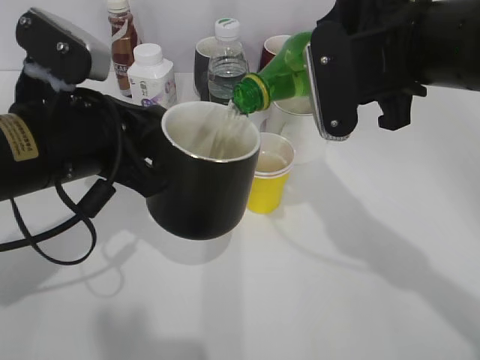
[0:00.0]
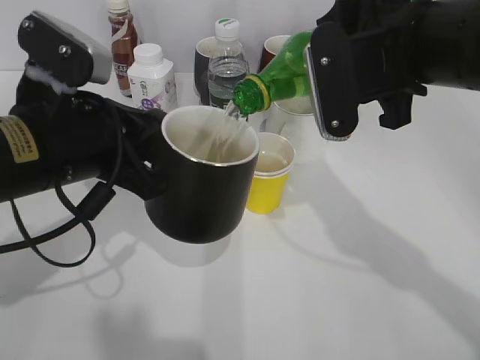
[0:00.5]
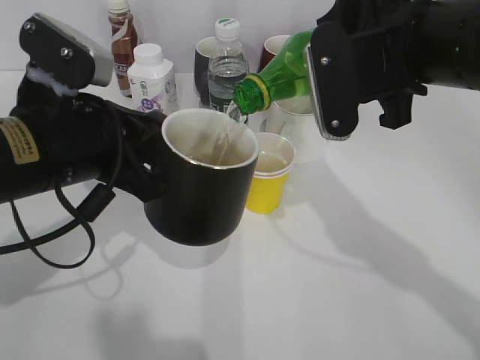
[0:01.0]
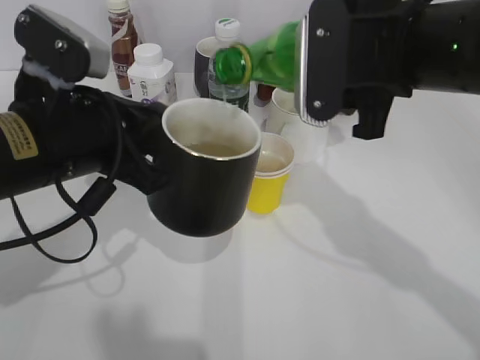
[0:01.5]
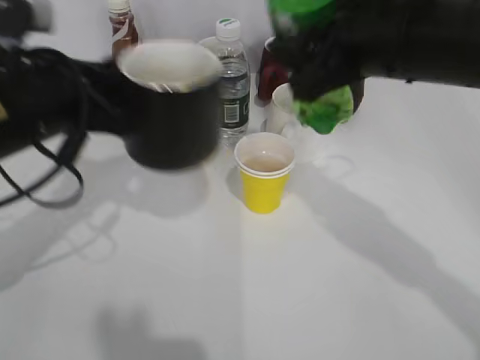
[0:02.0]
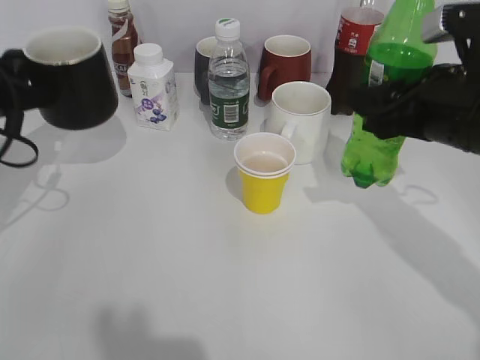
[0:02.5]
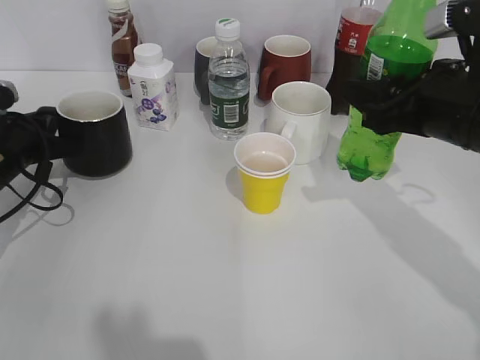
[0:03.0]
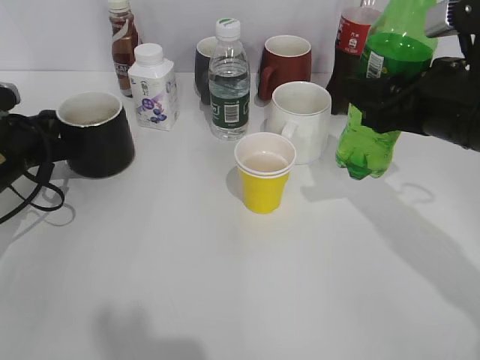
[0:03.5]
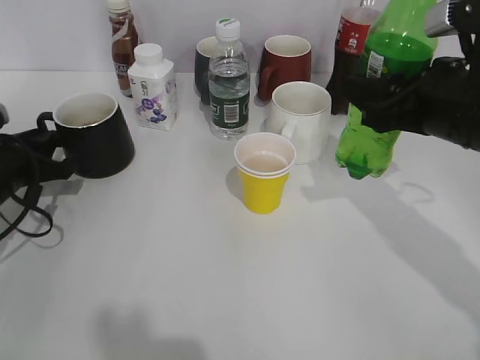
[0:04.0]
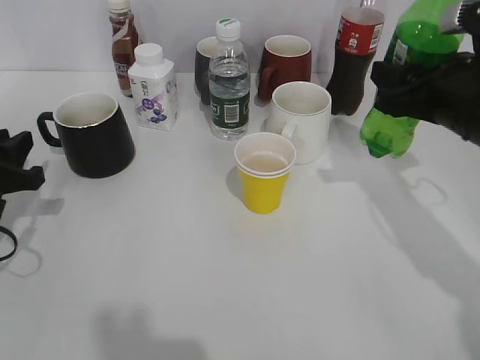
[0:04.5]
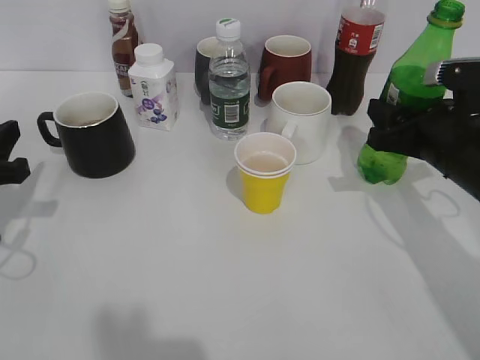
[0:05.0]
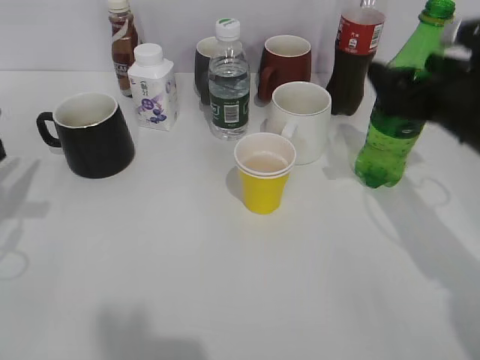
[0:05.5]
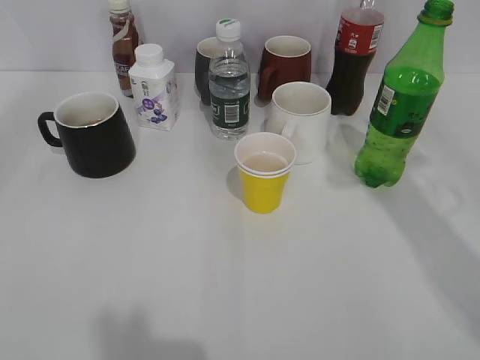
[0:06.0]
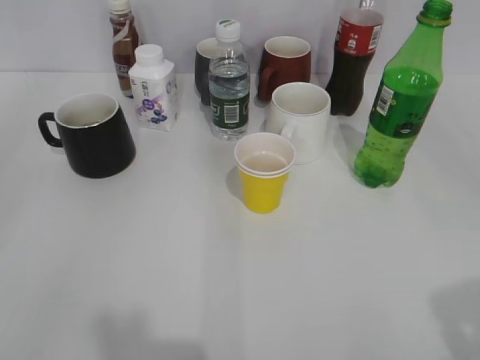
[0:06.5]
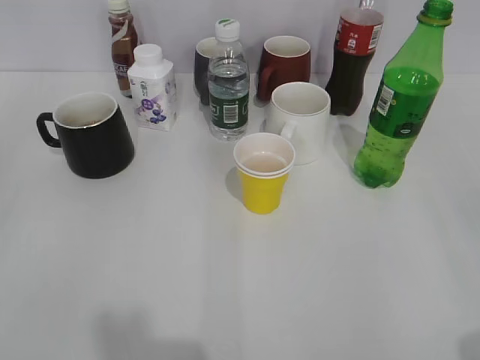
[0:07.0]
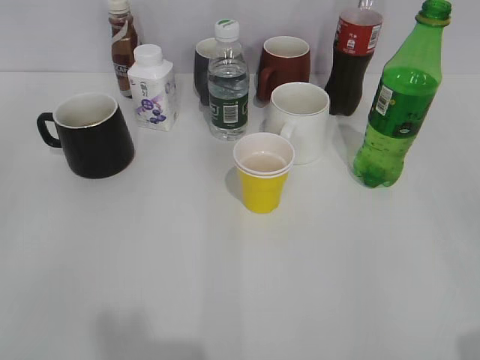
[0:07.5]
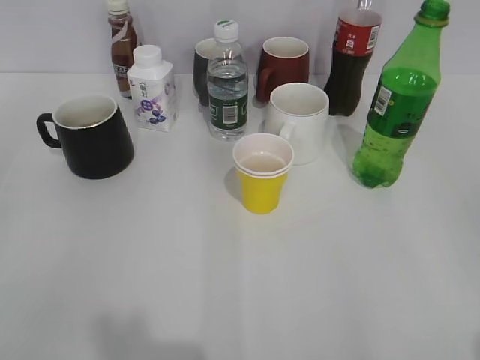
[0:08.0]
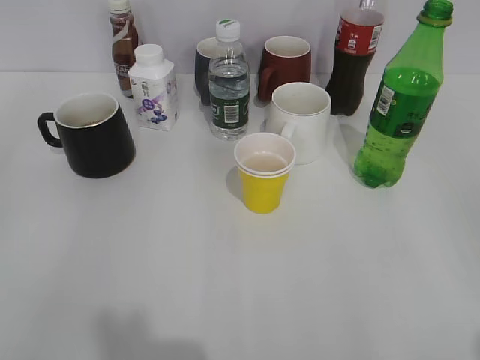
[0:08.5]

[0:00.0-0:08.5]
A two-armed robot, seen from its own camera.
Step, 0:02.0 to 0:04.0: Place the black cup on the table with left gripper.
Step, 0:04.5 to 0:05.5: Place the sprite bottle on the table with right gripper.
0:02.0 to 0:04.0: The left gripper shifts some 20 cm downward, to the left and forward, while the right gripper goes approximately 10 cm to the right and downward.
0:04.0 to 0:06.5: The left gripper shifts some 35 cm backward and upward, and opens its fingers. Meanwhile the right gripper moves backward, upward and to the right, about 25 cm, and opens up.
